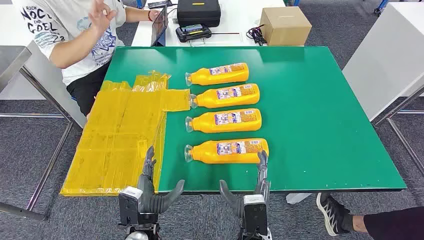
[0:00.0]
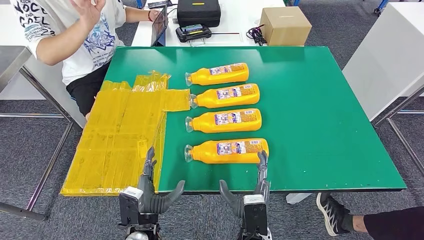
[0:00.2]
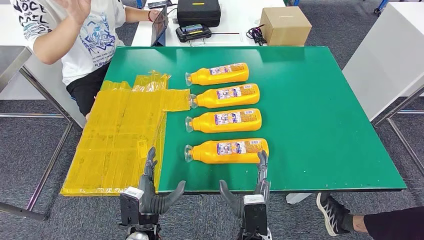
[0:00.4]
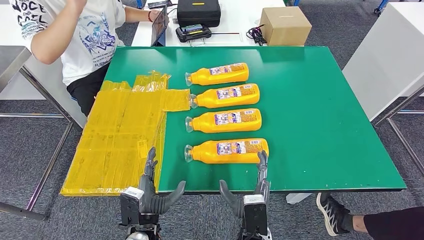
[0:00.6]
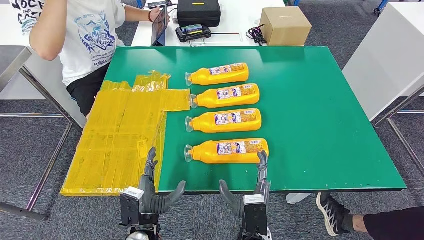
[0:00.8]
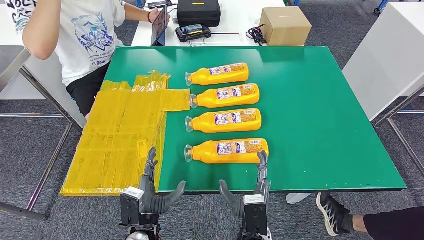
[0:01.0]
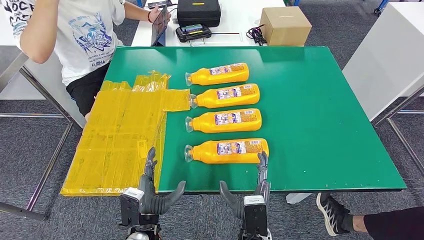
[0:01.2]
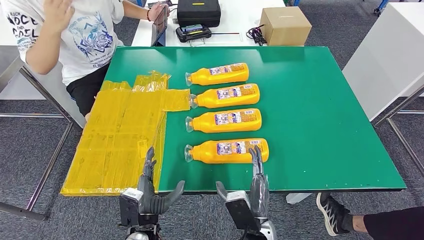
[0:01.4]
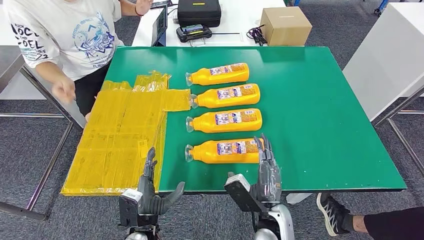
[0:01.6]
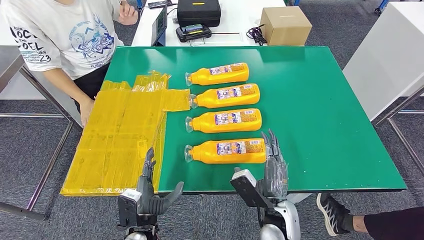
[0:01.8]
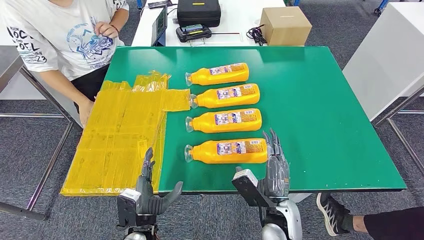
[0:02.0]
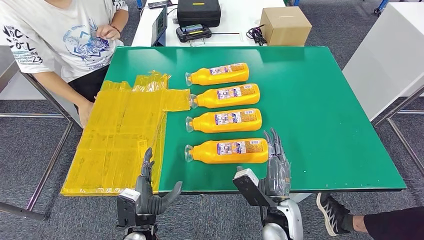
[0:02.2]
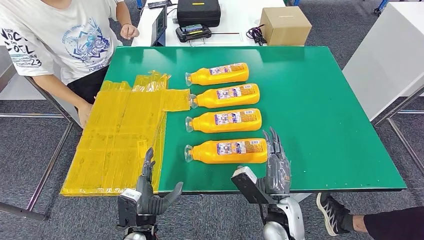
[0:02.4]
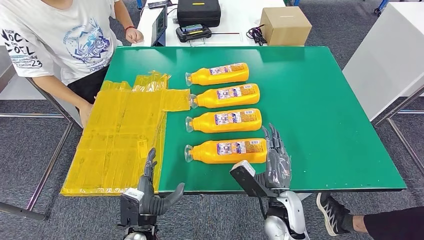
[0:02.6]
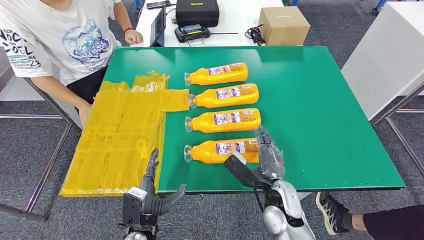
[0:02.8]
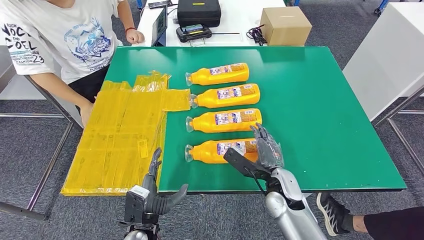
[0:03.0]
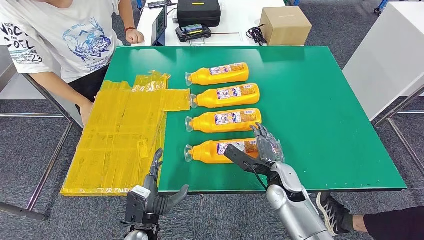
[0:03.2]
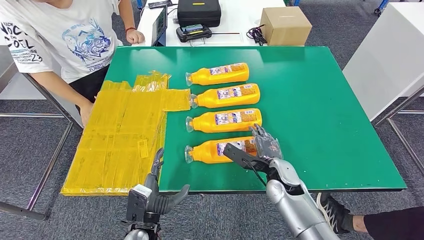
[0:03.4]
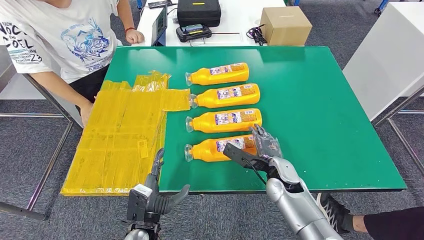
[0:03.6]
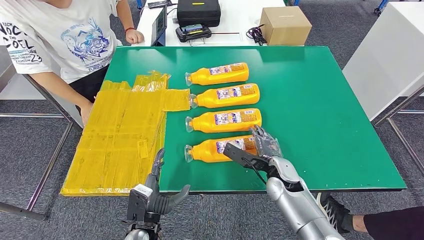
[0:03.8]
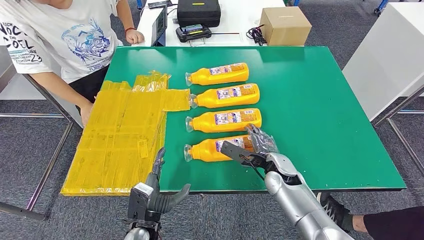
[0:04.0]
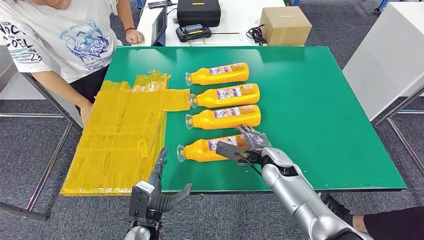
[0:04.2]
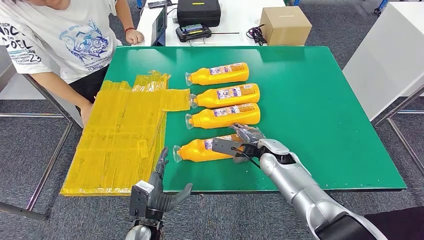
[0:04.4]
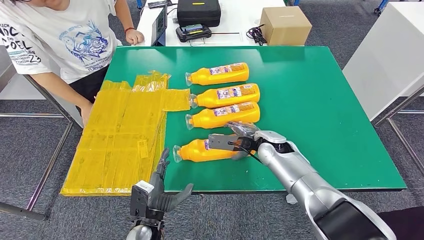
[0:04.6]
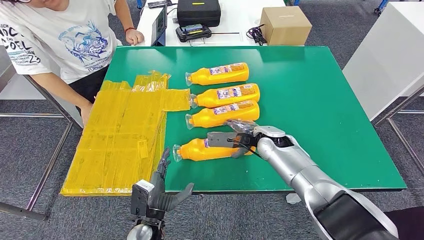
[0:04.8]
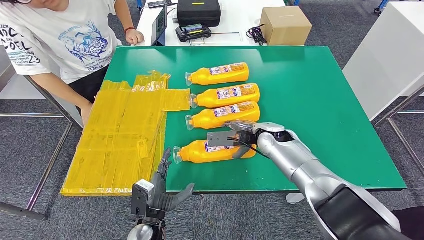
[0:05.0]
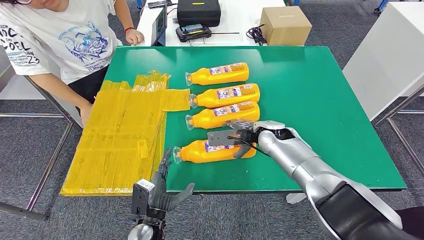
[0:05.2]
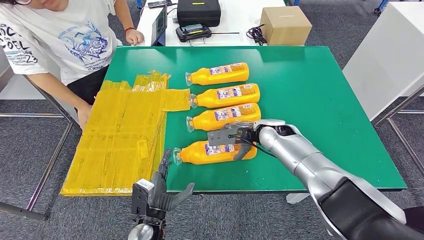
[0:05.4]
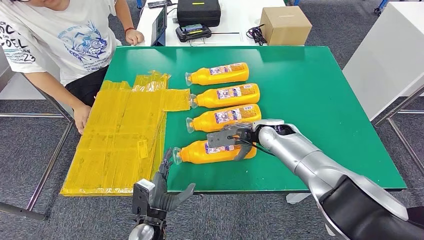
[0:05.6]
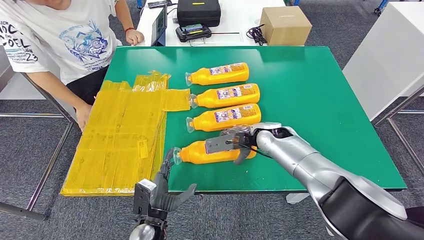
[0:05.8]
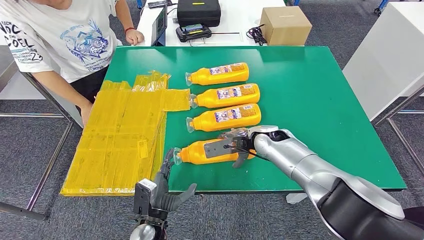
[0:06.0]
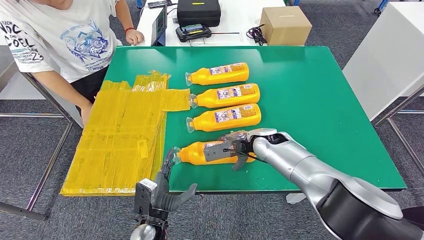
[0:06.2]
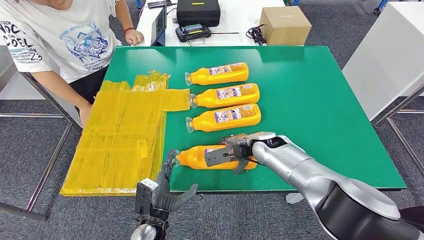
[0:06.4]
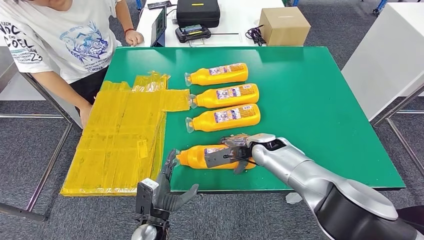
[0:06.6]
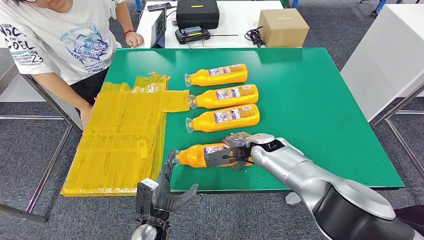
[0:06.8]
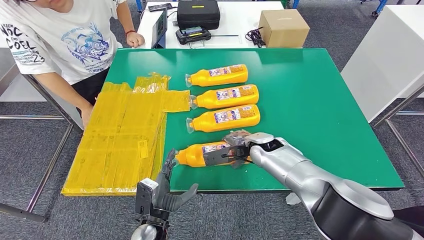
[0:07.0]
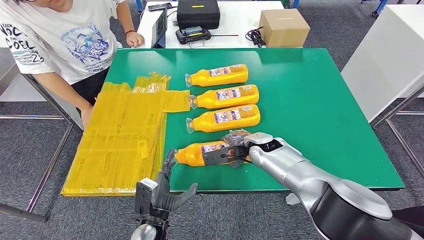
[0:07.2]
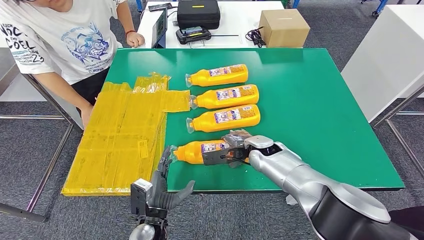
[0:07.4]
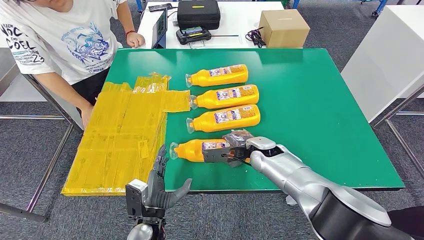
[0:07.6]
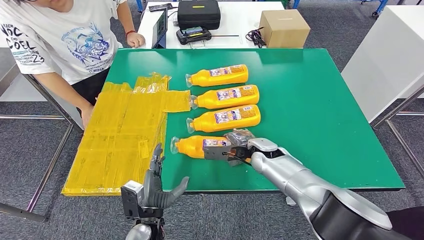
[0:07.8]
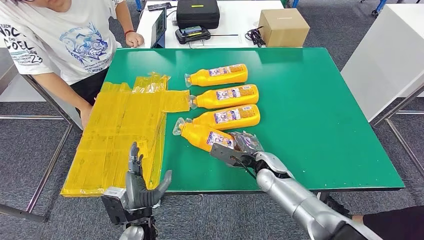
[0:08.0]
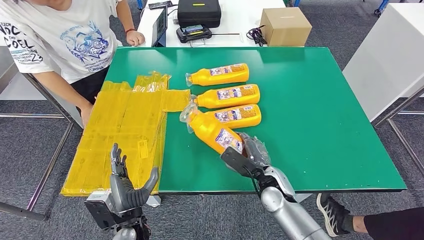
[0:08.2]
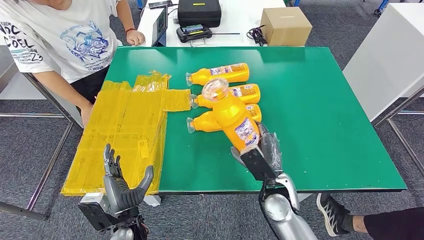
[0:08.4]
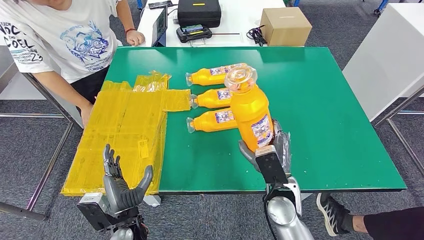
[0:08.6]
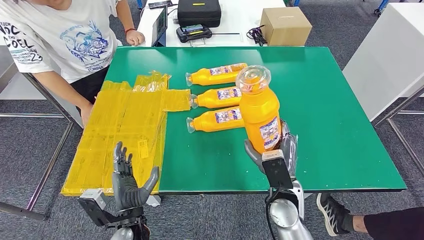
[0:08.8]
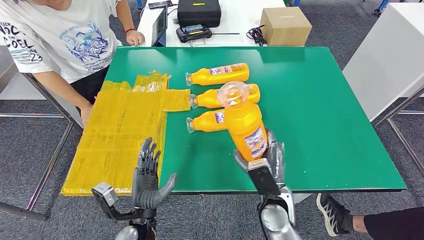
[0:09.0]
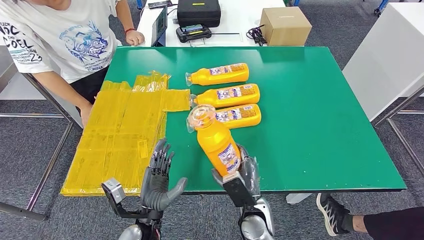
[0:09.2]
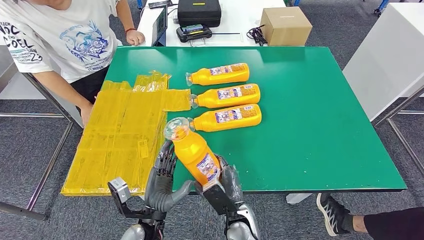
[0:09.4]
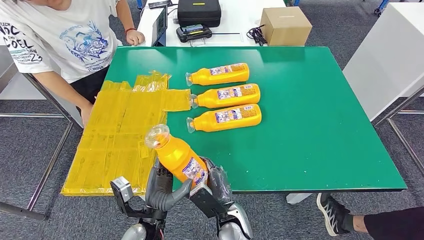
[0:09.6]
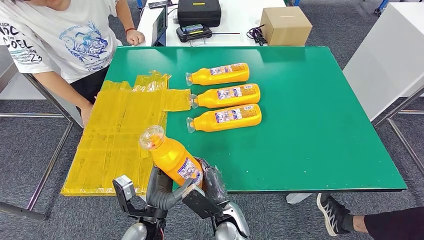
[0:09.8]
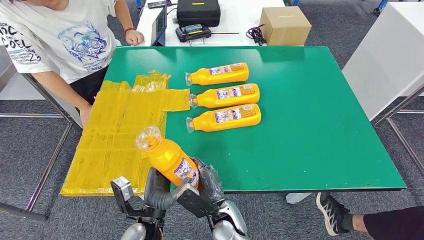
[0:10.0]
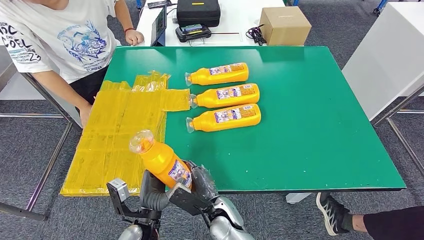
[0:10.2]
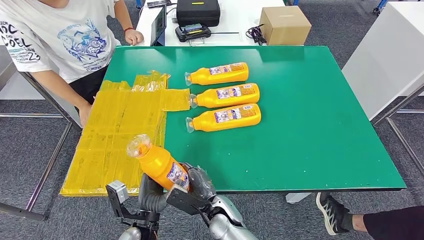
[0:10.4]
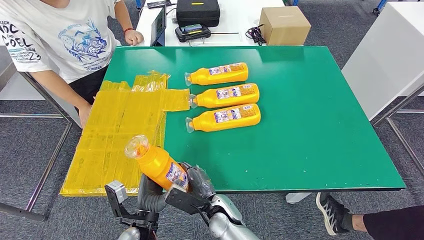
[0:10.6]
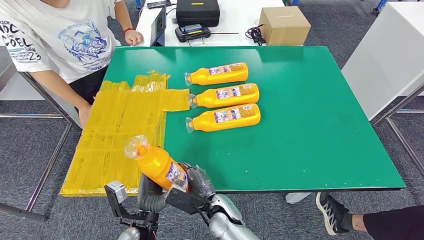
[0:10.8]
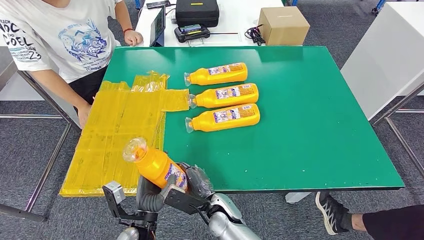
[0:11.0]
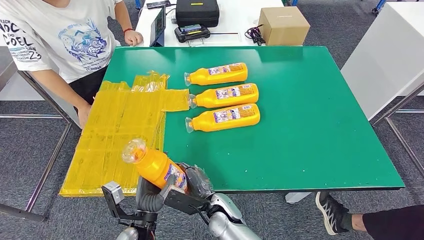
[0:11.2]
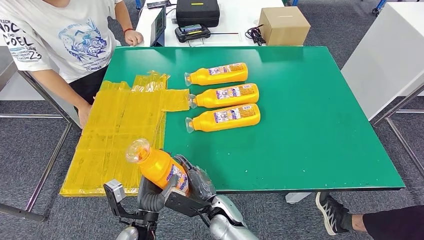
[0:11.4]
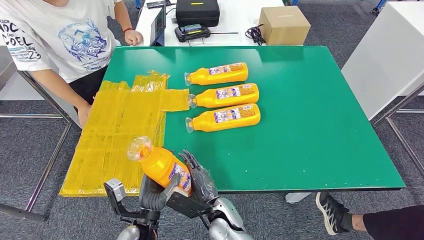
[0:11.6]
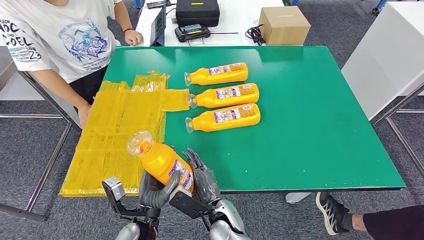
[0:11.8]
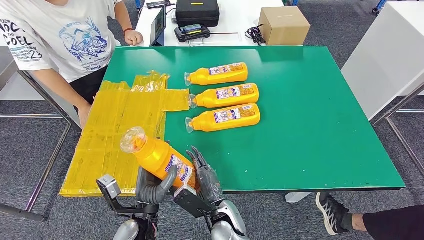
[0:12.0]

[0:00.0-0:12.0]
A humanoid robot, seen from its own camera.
Step, 0.0 to 9.6 s: Take the fast-moving consumer goods bottle from the table.
1.6 to 3.0 s: The right hand travels forward by roughly 10 cm.
3.0 to 4.4 s: The right hand is displaced forward by approximately 10 cm.
9.0 to 10.4 s: The right hand is displaced to the left and downward by about 15 cm.
10.4 to 12.0 s: The hands make only small movements.

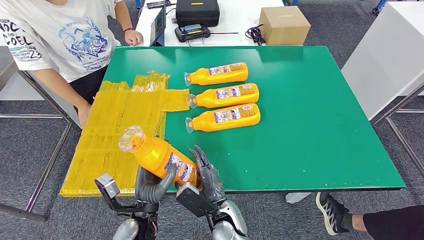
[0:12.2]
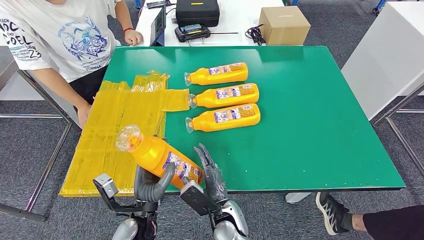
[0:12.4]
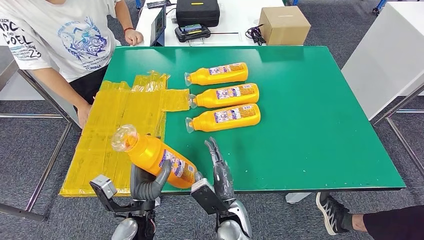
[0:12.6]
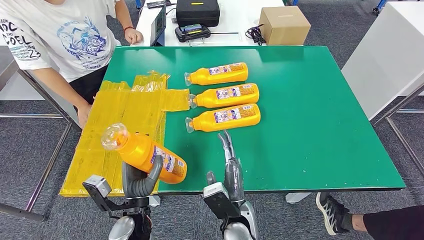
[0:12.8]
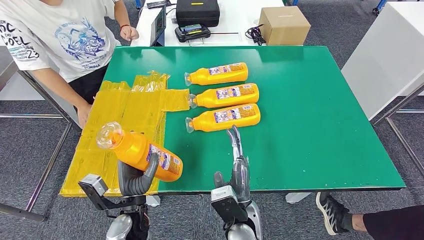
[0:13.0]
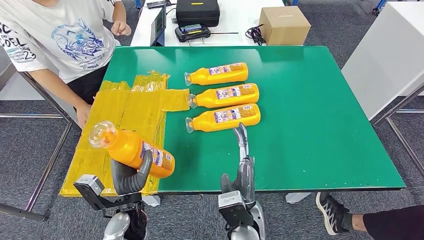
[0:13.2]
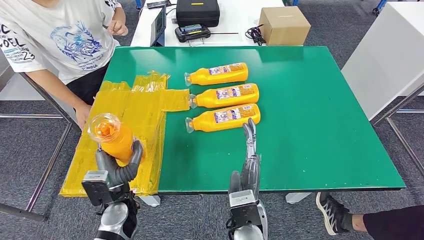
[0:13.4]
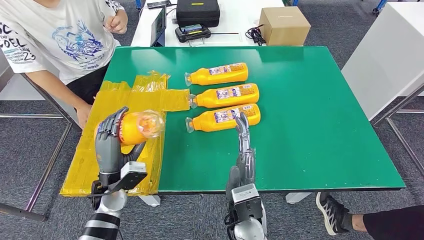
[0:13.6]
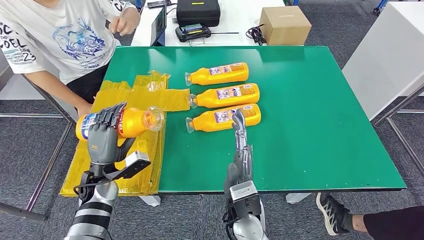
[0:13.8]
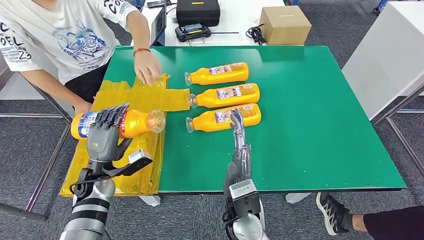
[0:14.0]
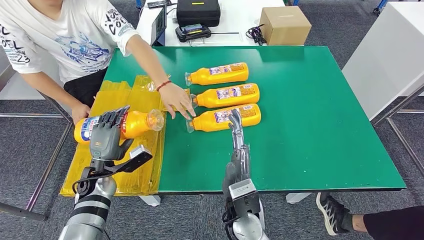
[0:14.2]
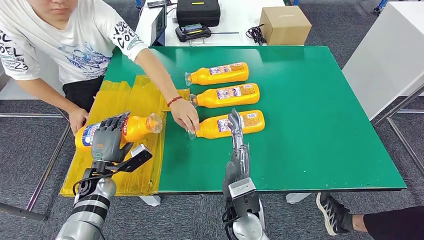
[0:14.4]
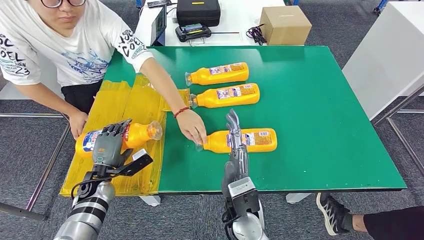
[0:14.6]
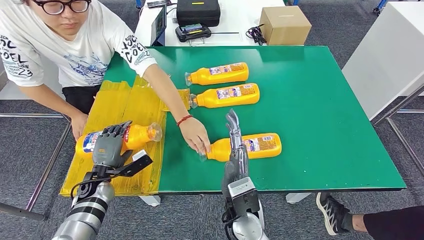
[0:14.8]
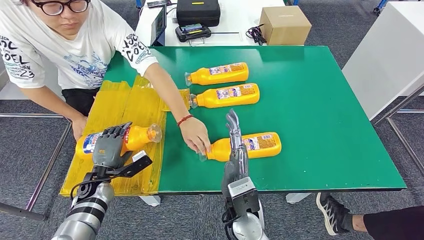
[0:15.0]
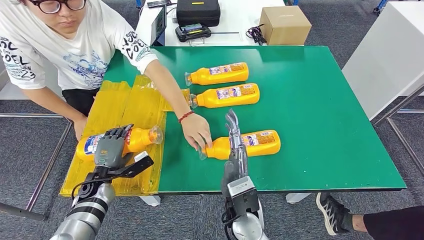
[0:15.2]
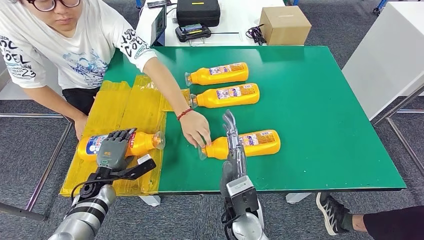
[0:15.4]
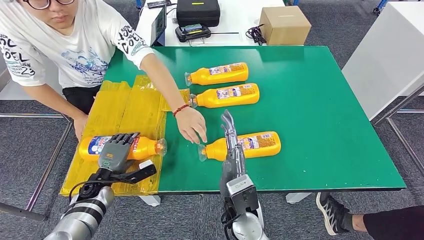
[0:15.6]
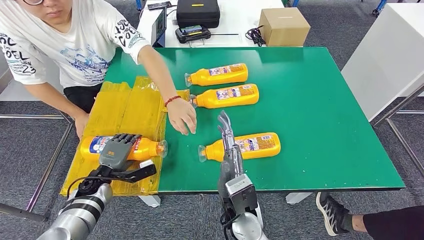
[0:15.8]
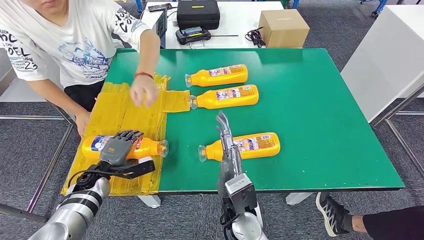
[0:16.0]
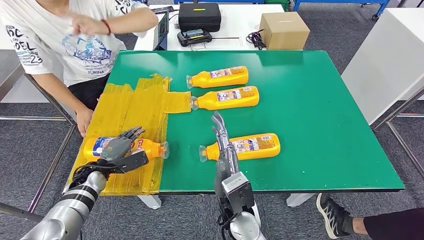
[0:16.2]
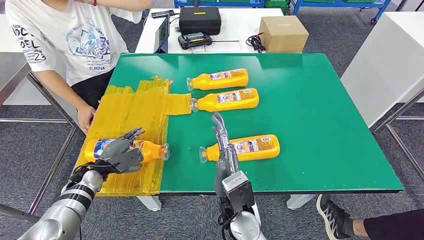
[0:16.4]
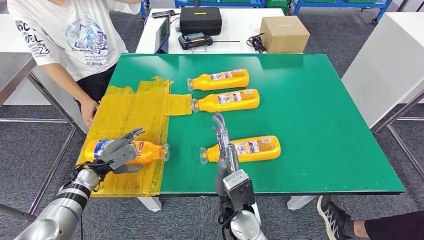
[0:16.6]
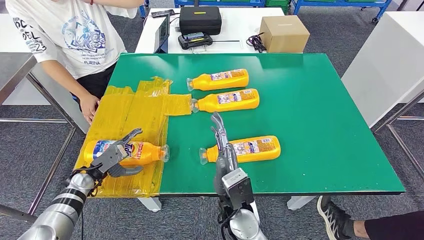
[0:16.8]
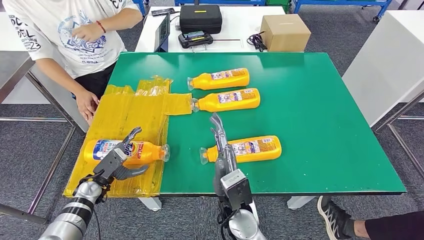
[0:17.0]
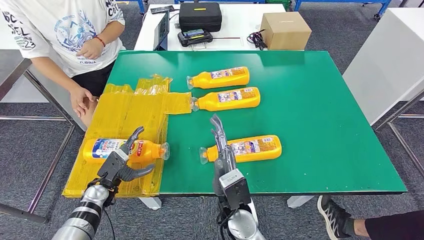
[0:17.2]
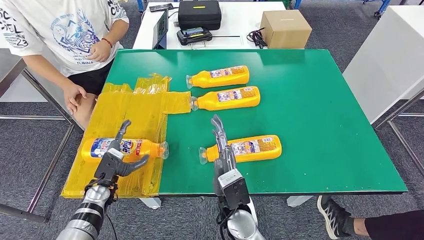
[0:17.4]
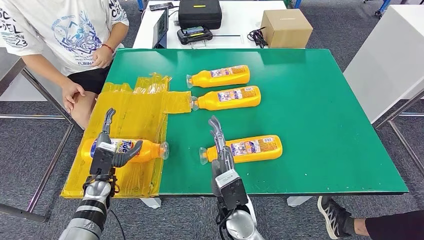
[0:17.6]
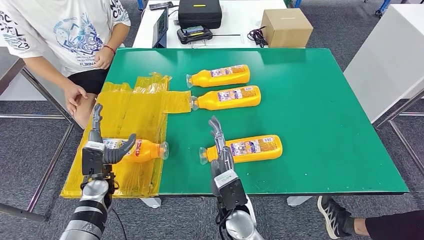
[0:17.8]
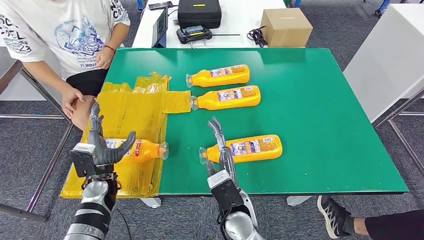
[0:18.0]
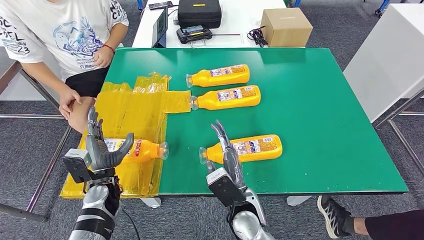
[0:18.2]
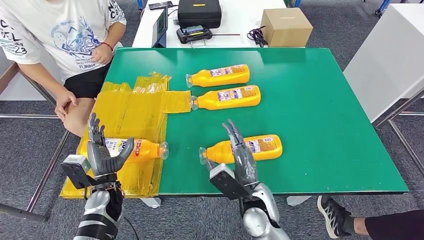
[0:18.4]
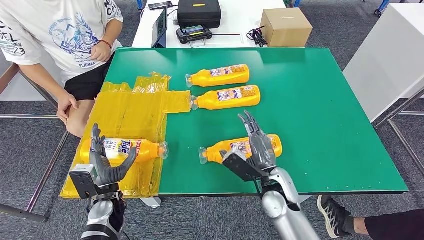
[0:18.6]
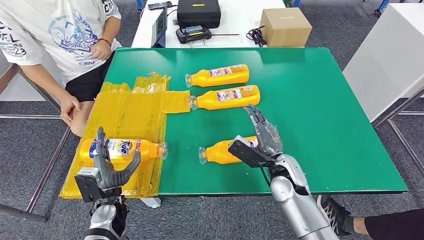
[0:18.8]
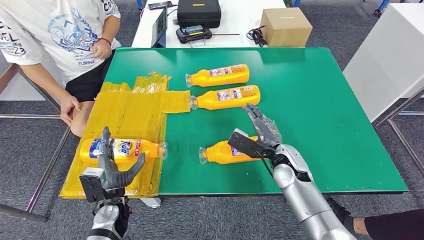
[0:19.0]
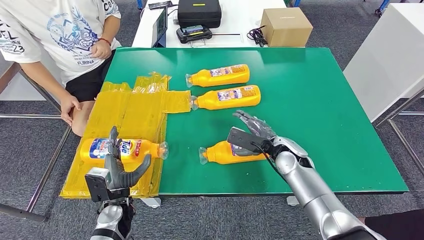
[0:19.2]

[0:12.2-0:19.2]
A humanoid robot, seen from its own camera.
Step, 12.2 to 14.2 s: Flip the fast-moving consumer goods bottle to the front side.
12.2 to 13.6 s: The left hand heads to the left and forward, covering approximately 10 cm. Meanwhile the right hand is displaced upward by roughly 10 cm.
